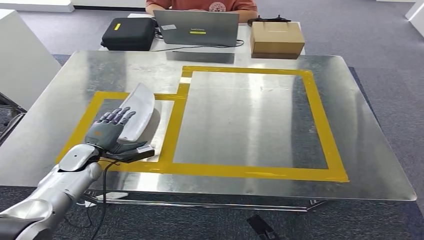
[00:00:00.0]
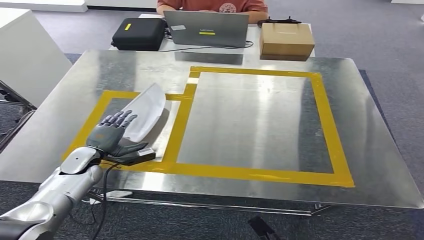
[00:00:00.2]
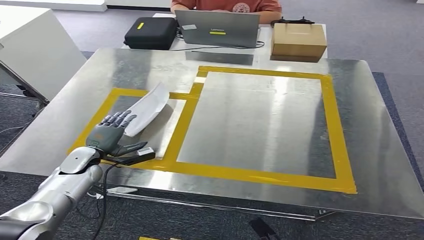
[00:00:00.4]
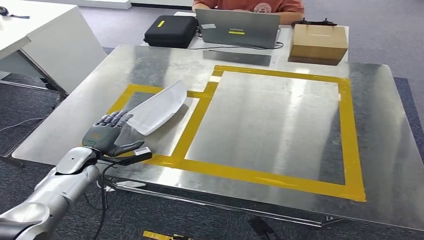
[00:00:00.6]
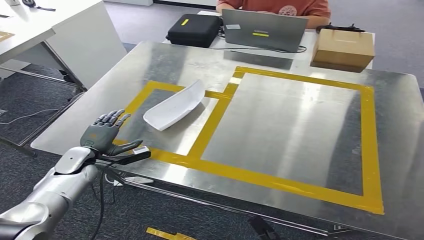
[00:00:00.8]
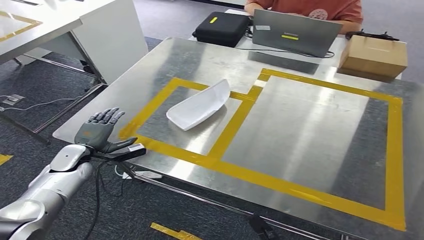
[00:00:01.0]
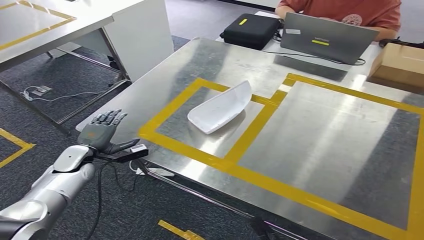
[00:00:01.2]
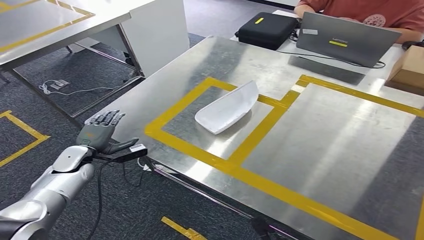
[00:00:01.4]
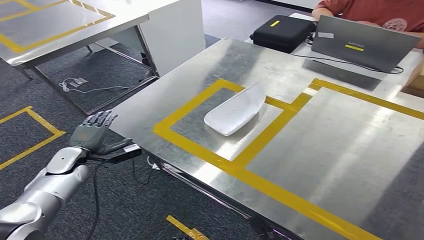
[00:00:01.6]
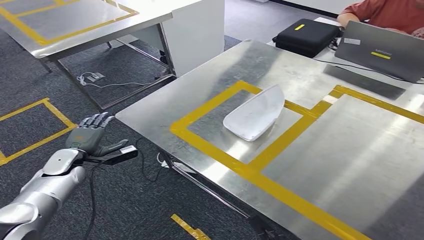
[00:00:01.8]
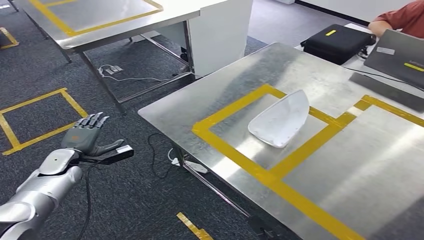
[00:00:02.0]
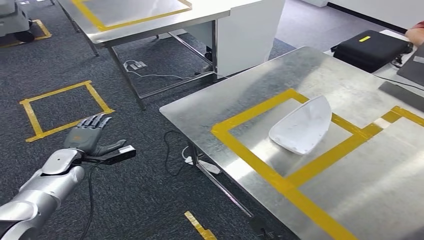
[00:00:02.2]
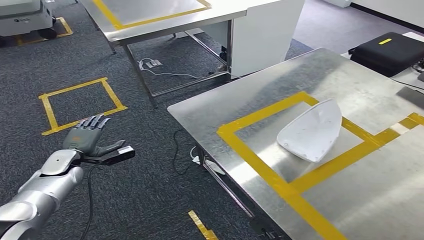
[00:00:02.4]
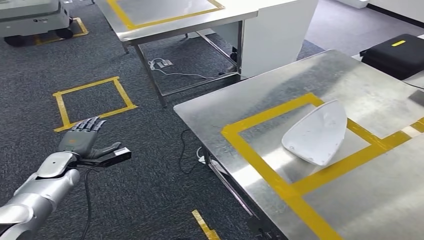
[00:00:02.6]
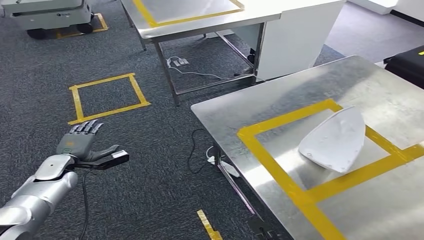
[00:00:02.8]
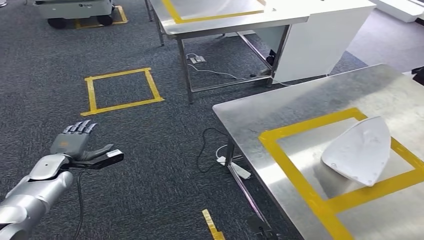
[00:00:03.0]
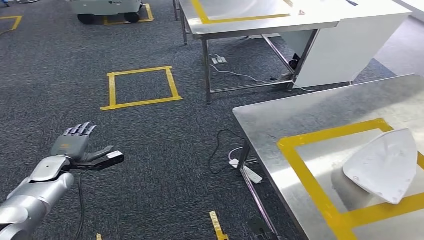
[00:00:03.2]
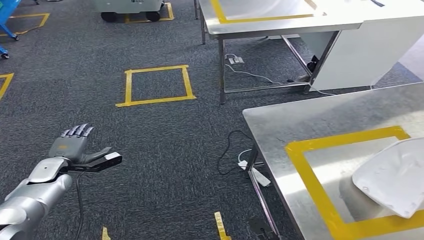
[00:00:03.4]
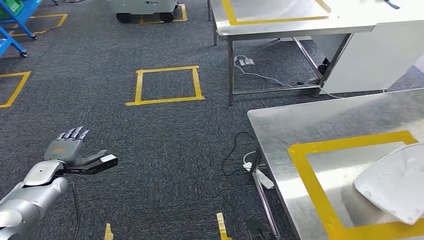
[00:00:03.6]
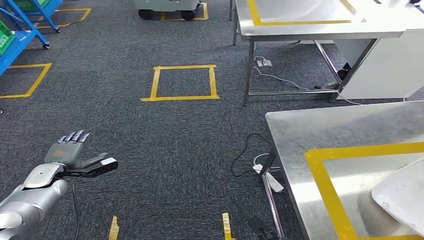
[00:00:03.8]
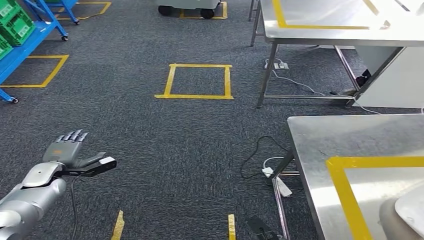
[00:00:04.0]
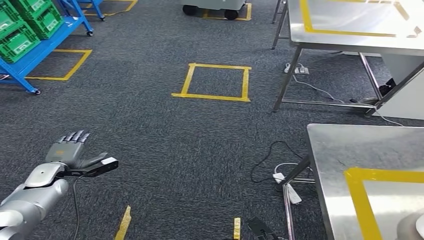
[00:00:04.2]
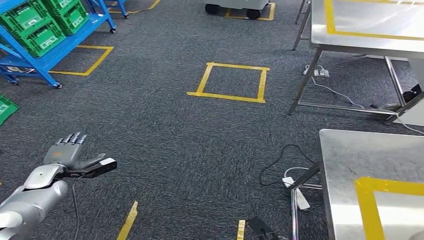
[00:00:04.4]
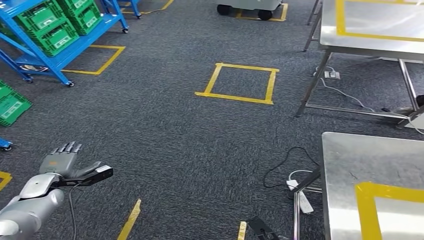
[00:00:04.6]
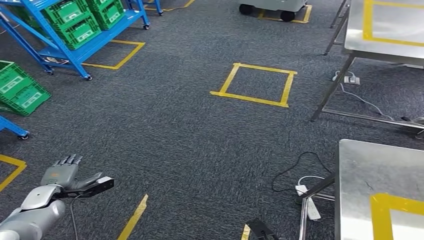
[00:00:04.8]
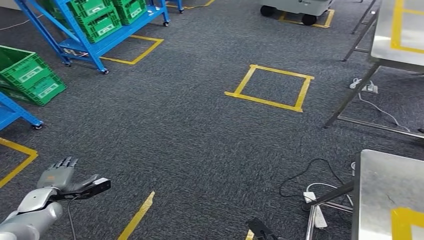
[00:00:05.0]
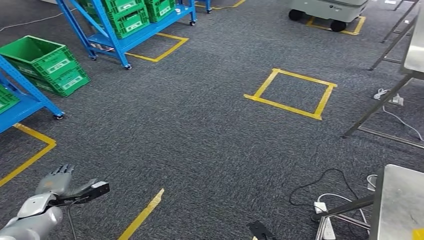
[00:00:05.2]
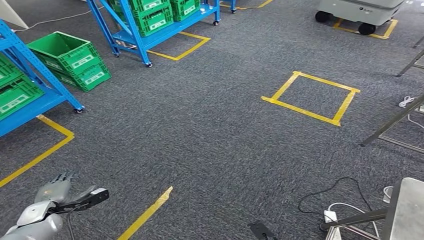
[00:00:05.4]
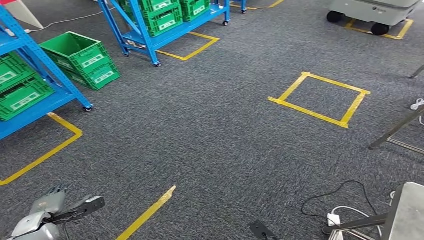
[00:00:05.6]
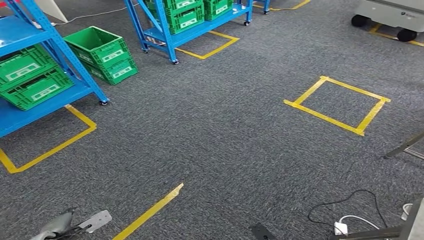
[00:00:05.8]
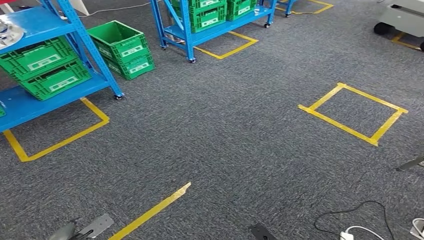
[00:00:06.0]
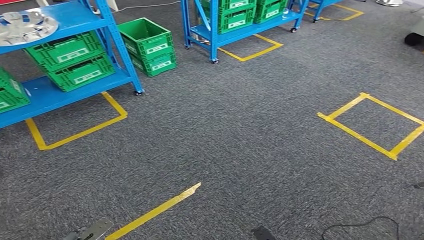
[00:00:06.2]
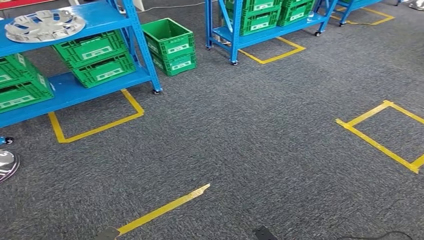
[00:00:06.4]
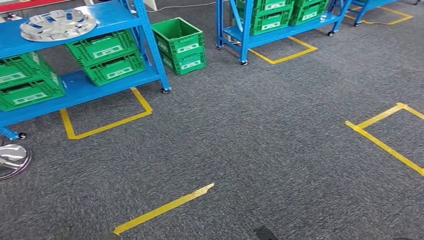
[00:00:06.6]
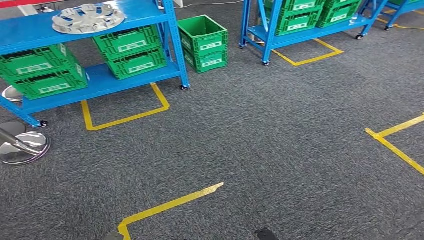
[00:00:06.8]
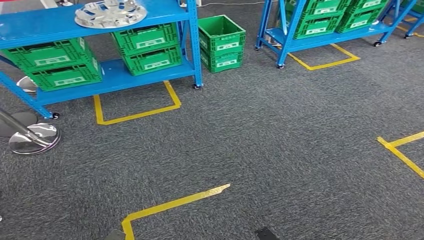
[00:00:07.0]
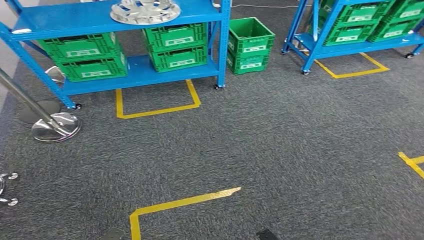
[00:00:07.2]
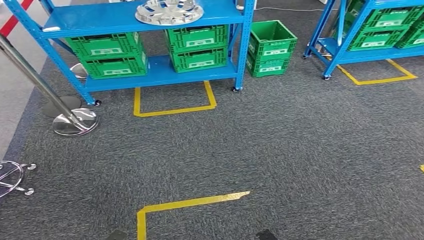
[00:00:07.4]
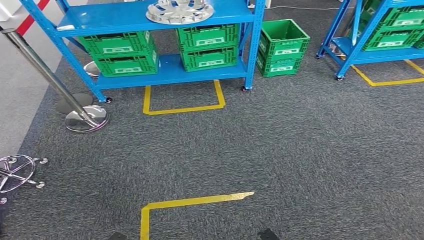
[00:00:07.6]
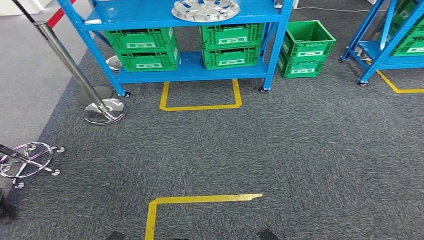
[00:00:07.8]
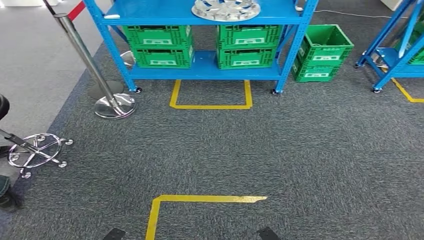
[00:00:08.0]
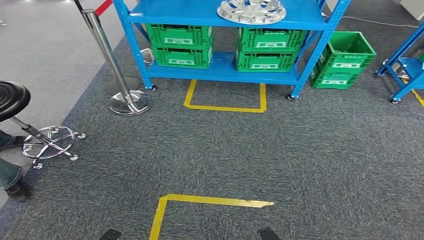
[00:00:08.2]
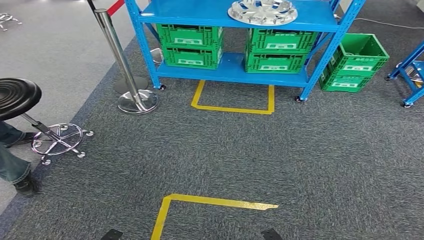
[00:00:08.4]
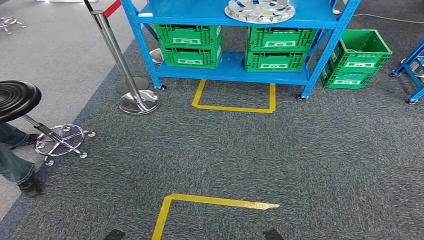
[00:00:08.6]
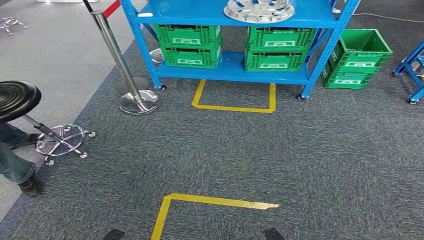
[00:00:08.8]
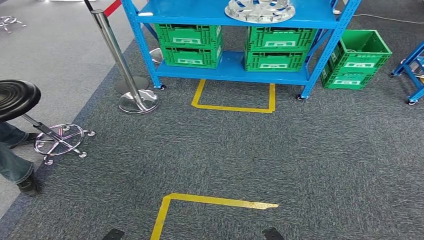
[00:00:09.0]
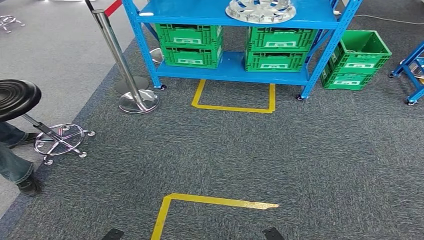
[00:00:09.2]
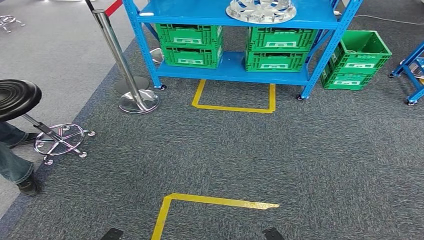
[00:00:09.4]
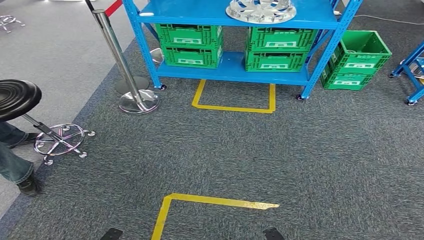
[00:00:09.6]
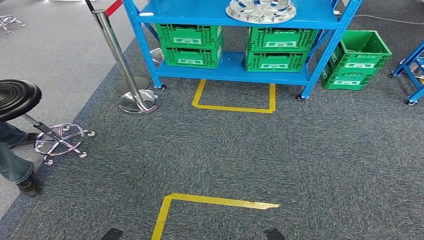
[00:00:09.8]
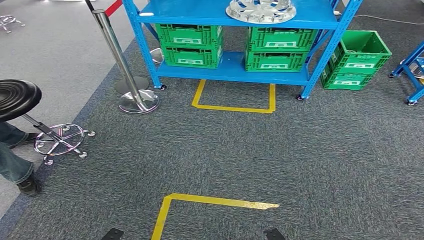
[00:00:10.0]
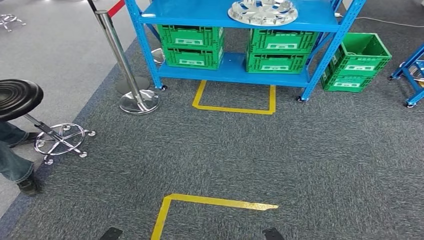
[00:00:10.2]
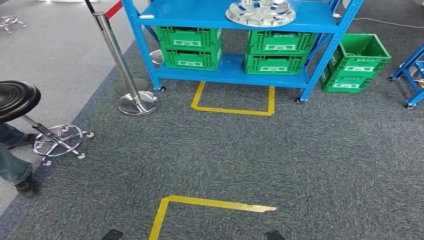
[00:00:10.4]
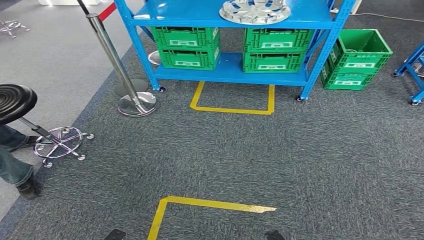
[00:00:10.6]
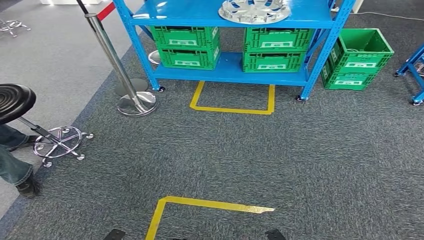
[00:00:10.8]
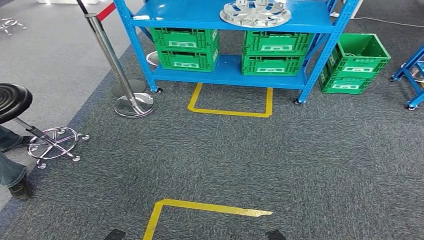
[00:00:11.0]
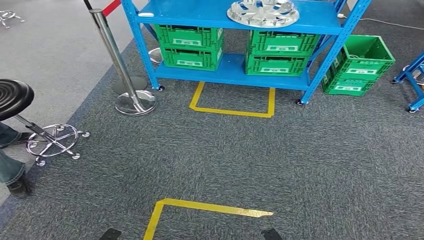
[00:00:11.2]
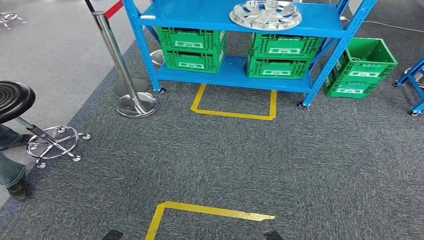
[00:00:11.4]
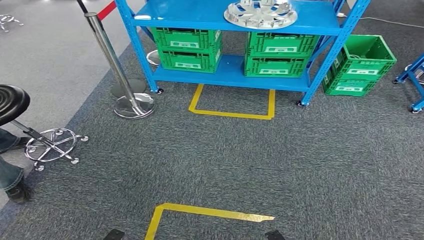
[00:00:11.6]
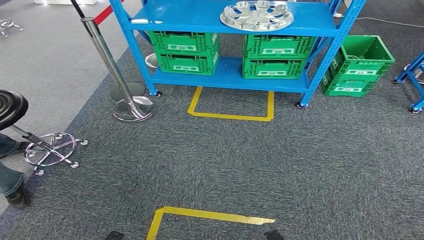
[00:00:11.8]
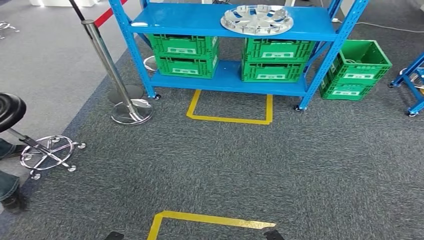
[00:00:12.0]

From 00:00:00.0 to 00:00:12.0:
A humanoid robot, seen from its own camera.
From 00:00:09.0 to 00:00:10.4: The two hands keep their place.

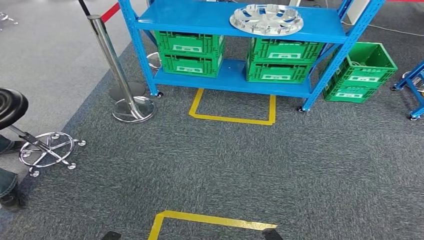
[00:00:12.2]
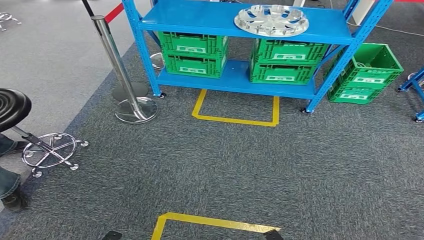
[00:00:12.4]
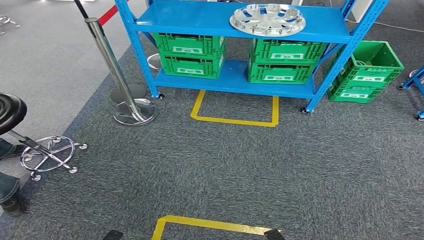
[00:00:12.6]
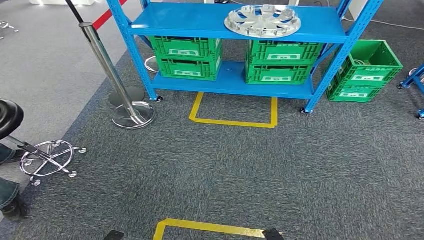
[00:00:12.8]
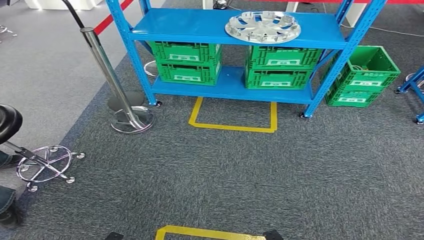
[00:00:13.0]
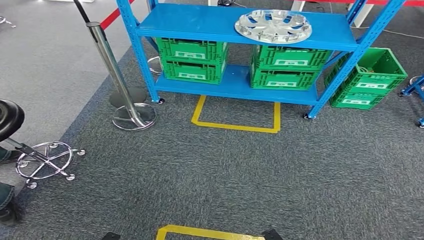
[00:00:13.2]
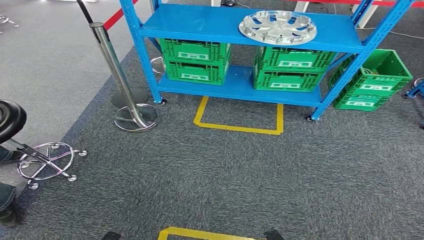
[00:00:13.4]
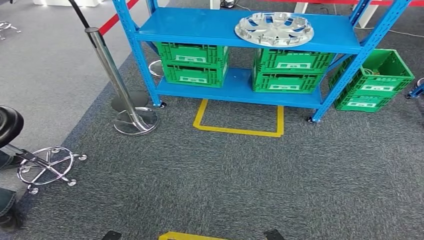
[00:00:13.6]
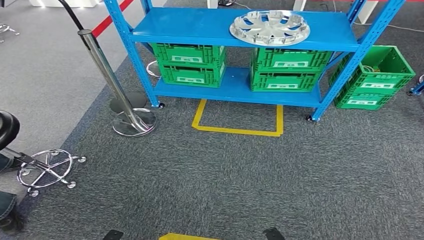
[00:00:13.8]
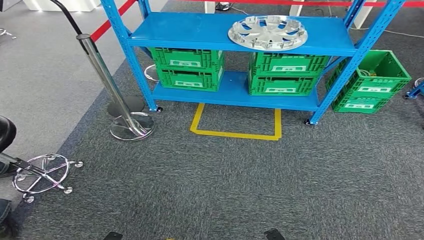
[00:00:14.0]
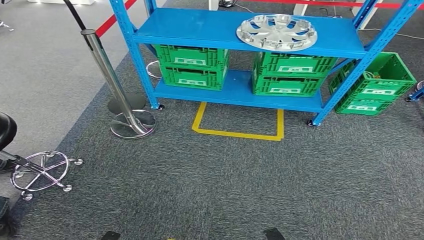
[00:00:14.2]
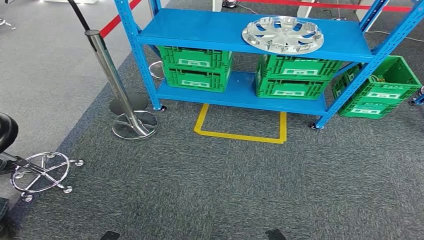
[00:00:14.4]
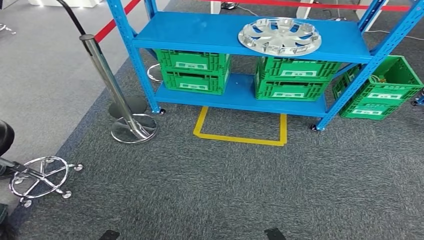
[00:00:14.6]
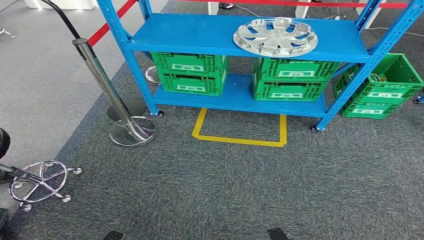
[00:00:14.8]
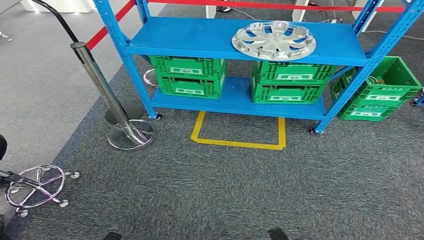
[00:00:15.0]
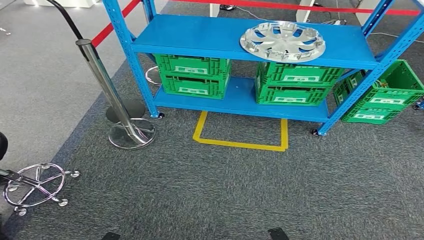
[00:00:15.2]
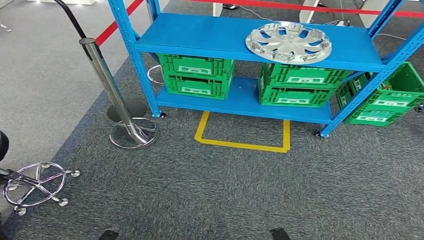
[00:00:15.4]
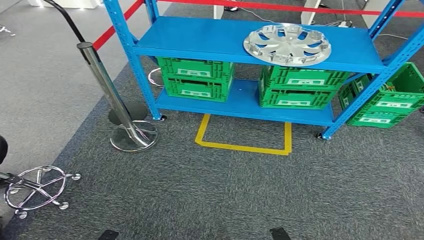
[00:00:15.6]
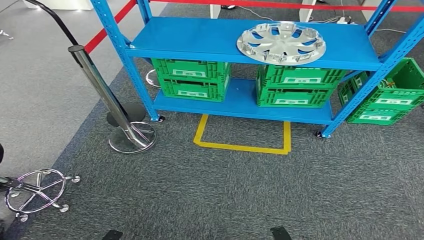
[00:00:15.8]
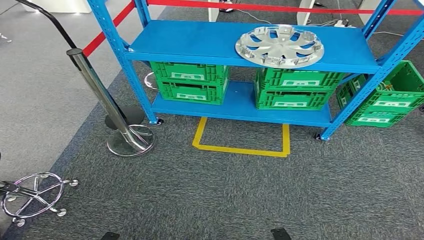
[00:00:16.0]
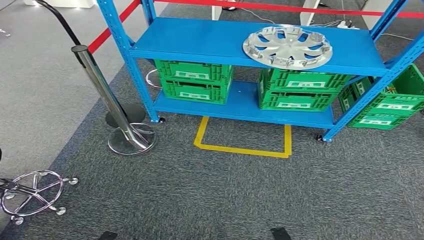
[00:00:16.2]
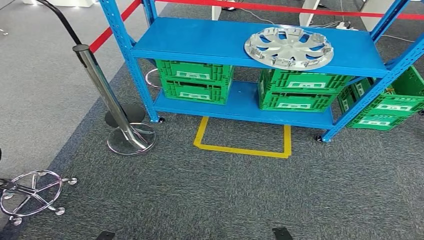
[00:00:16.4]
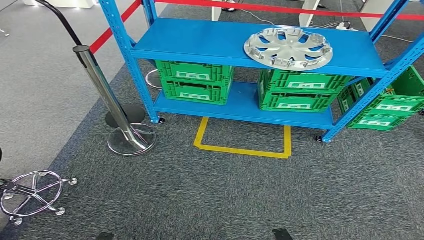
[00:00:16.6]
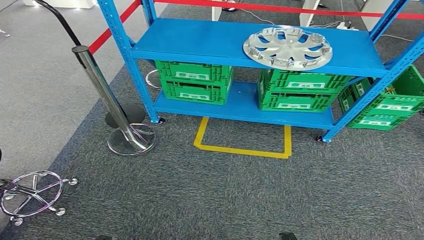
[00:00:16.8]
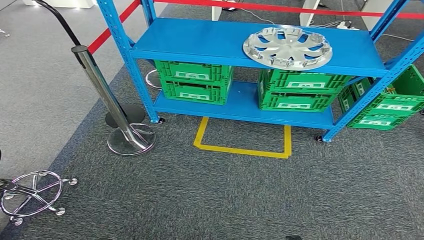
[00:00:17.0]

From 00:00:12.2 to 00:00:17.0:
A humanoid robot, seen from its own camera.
Step, from 00:00:12.2 to 00:00:17.0: Move to the initial position at the workbench.
